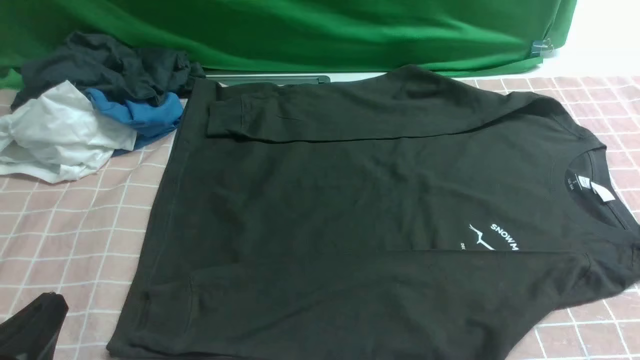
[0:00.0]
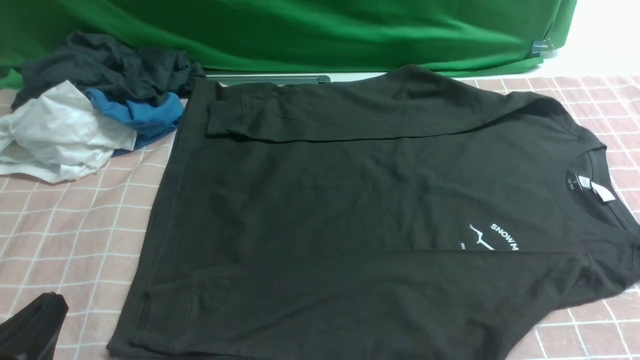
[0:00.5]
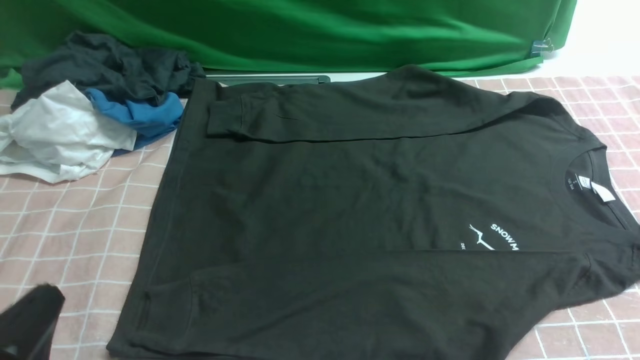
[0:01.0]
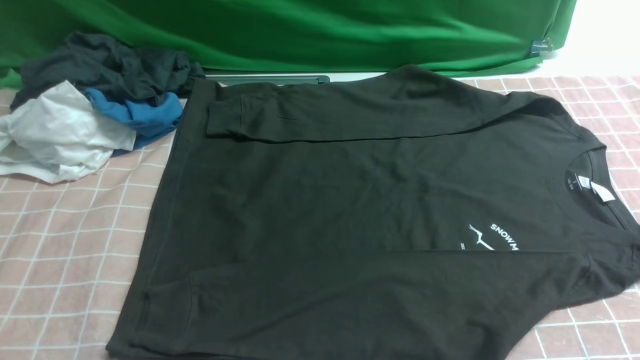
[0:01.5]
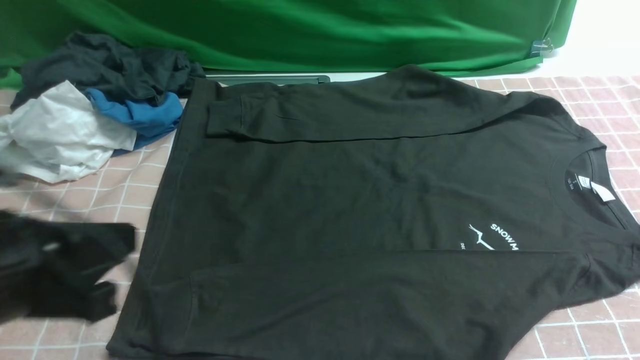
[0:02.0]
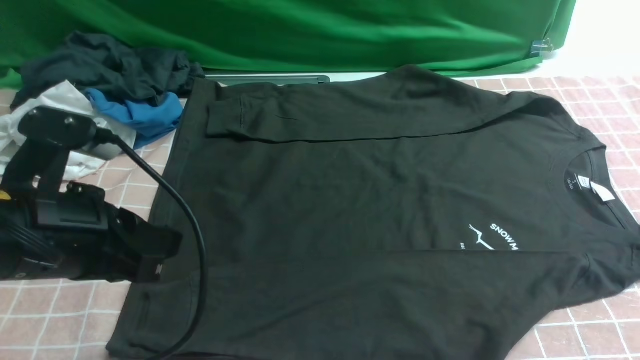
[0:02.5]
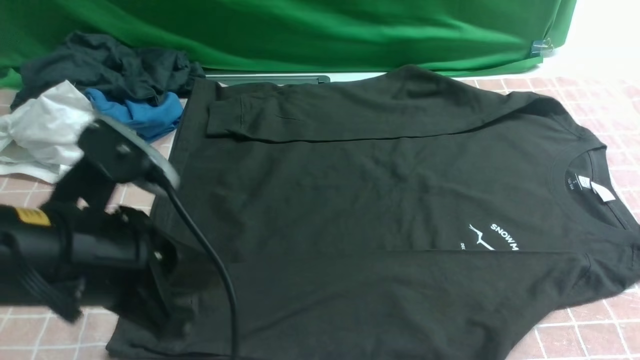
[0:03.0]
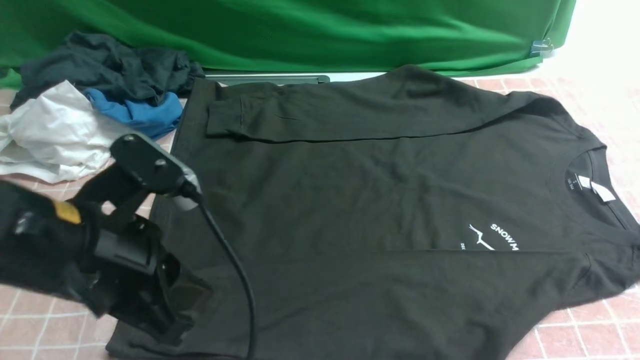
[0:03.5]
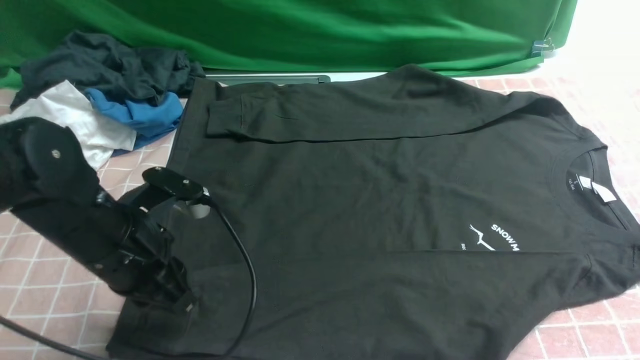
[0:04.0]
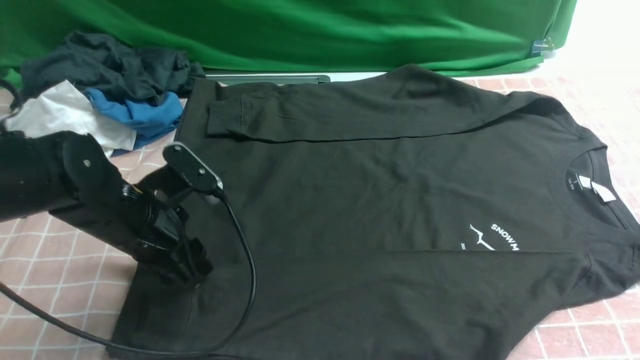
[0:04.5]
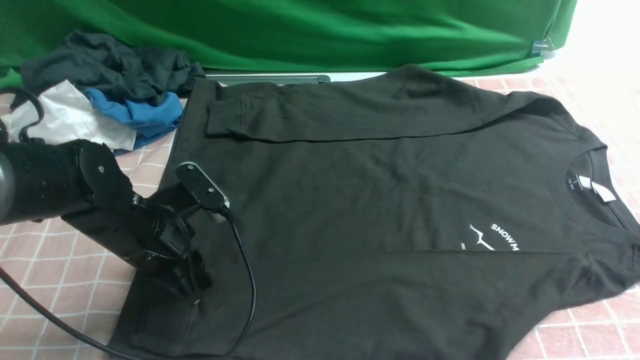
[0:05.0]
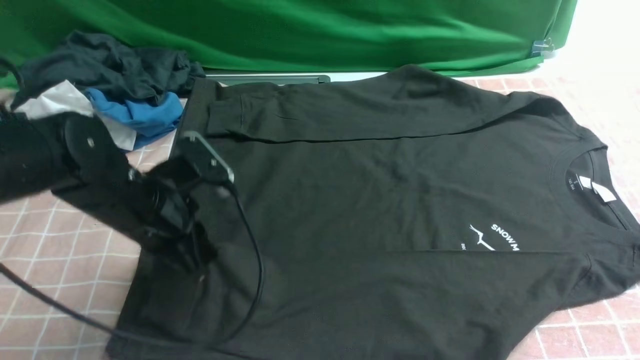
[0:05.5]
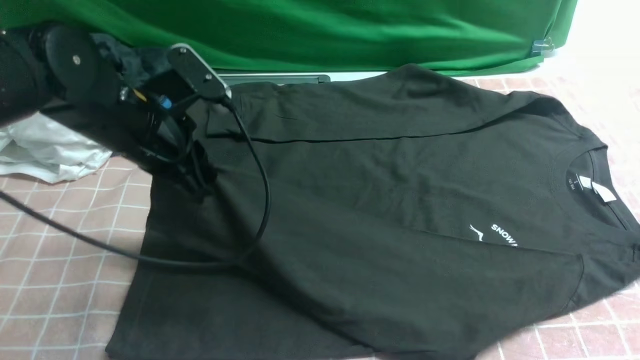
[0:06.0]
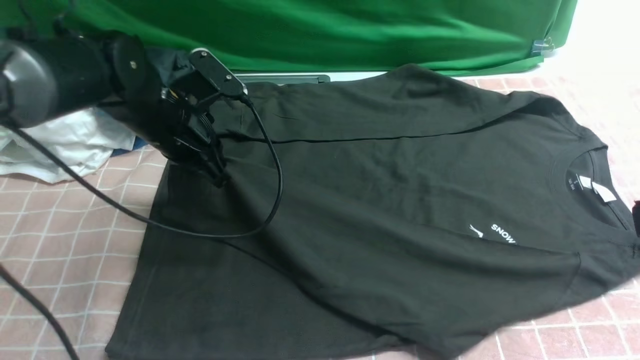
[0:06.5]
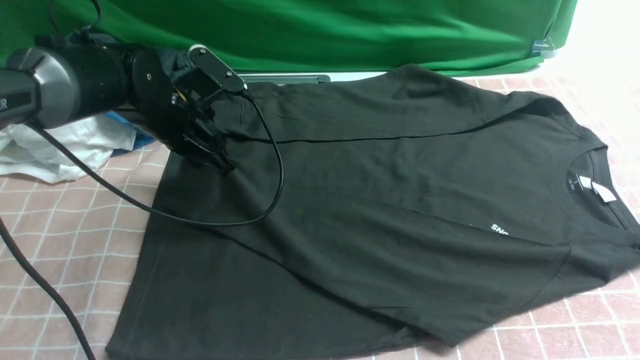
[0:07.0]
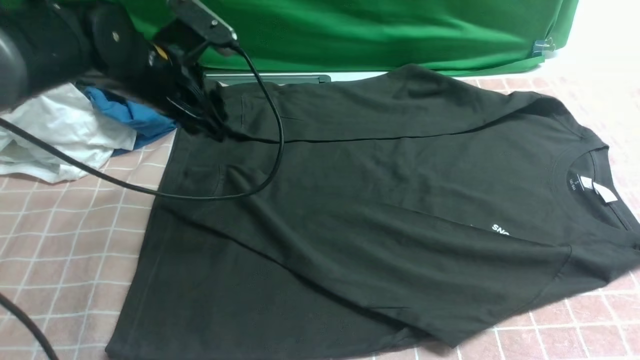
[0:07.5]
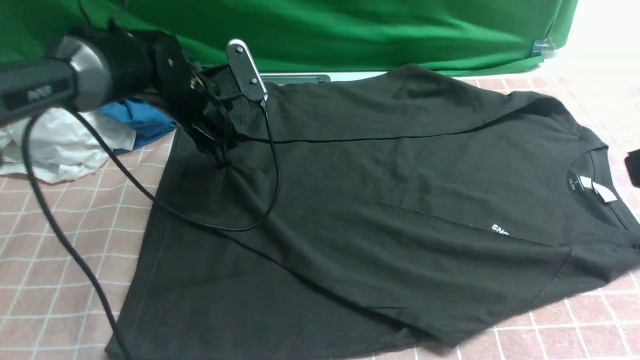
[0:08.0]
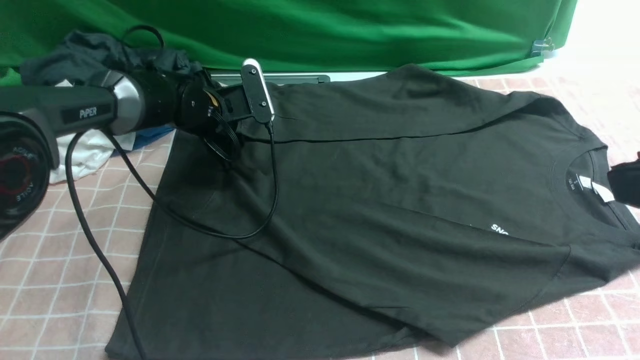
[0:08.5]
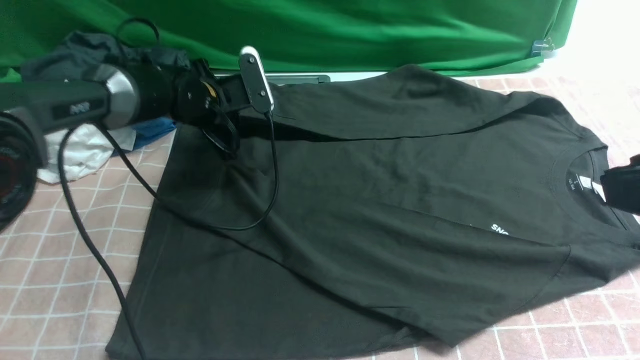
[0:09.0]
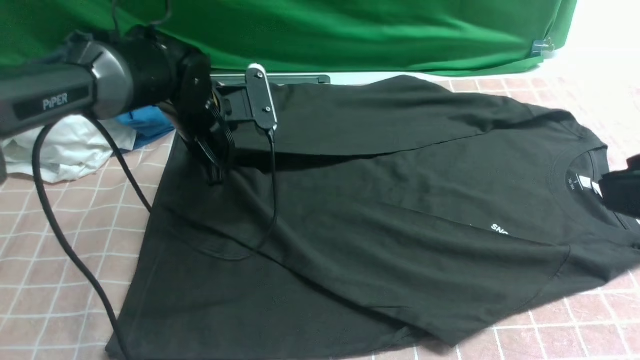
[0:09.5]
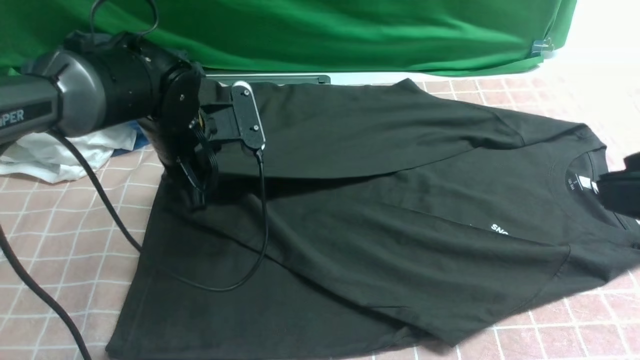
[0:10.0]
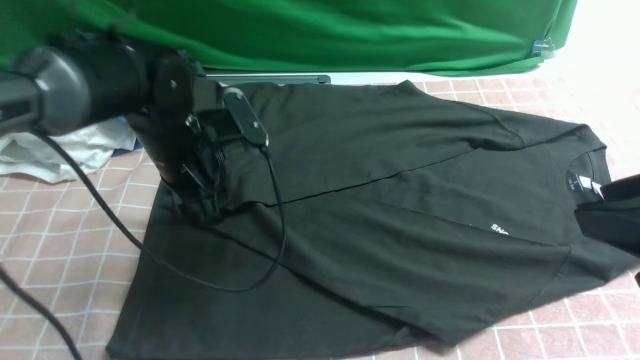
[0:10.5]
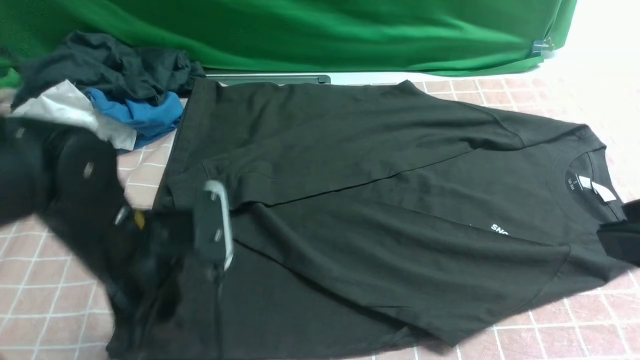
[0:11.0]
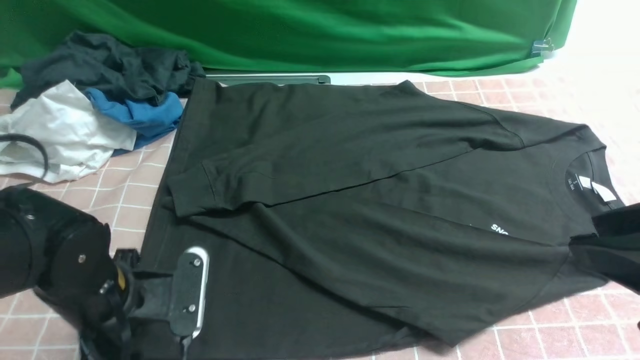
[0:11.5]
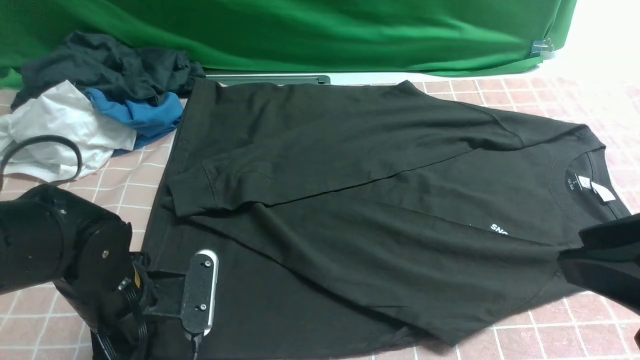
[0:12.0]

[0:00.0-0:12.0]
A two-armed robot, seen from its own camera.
Step, 0:00.0 to 0:05.0: use the left arm to clamp the cuff closest to it.
Step, 0:05.5 to 0:07.0: use the left arm to drag and place the cuff at the centered position on the left edge of the fabric.
Step, 0:07.5 to 0:08.5: use the left arm to clamp the cuff farthest from it.
Step, 0:09.0 to 0:10.5: use the left arm to drag and drop the cuff onto the cuff closest to the left arm.
0:00.0 to 0:02.0: The left gripper heads upward and forward, covering approximately 15 cm.
0:02.0 to 0:04.0: The left gripper travels forward and downward by roughly 15 cm. The right gripper shifts approximately 20 cm upward.
0:04.0 to 0:06.0: The left gripper goes about 10 cm forward, and opens, then closes once more.
0:06.0 to 0:08.0: The left gripper goes about 15 cm forward and downward, and opens its fingers.
0:08.0 to 0:10.0: The left gripper goes some 5 cm backward, and closes up.
0:10.0 to 0:12.0: The left gripper travels backward by roughly 15 cm, and opens up.

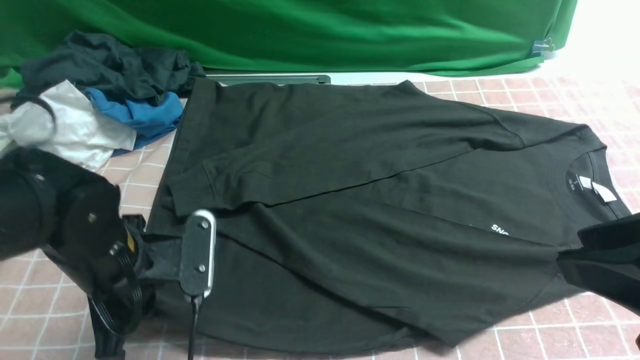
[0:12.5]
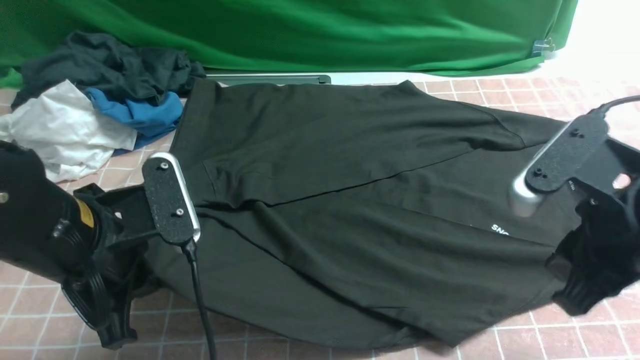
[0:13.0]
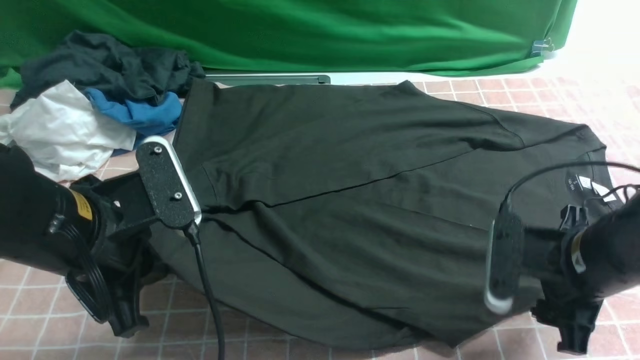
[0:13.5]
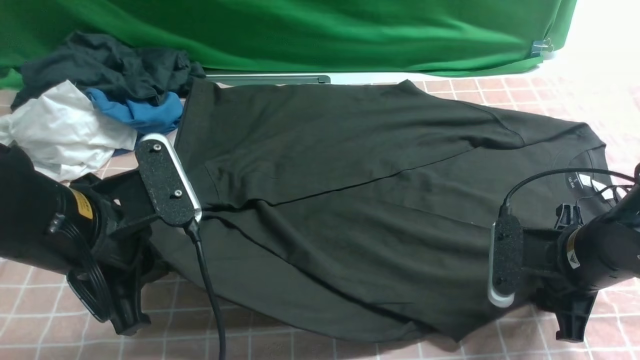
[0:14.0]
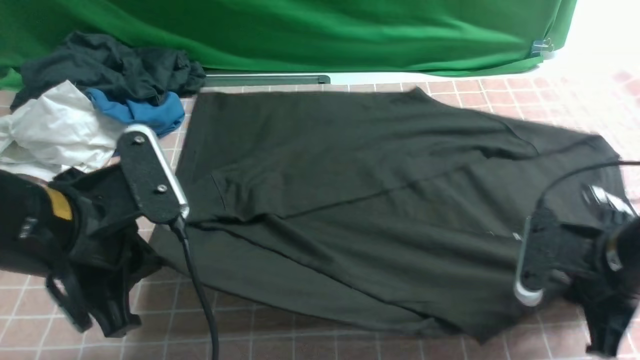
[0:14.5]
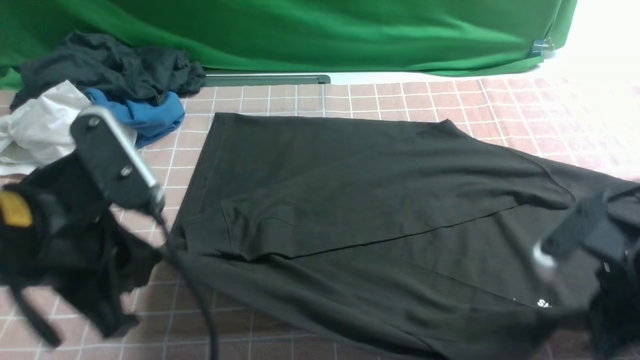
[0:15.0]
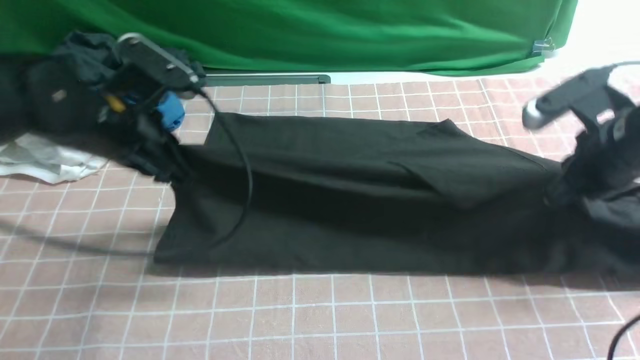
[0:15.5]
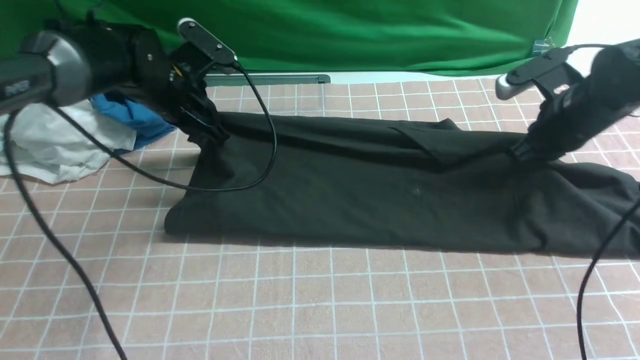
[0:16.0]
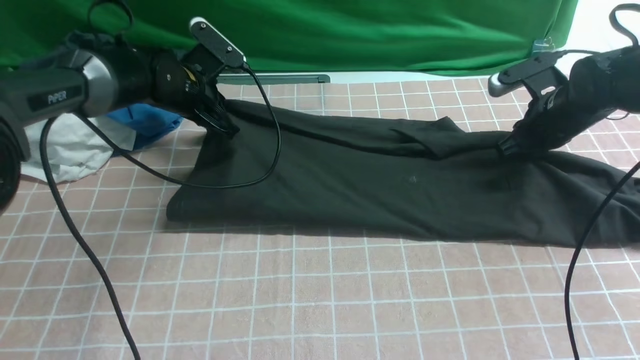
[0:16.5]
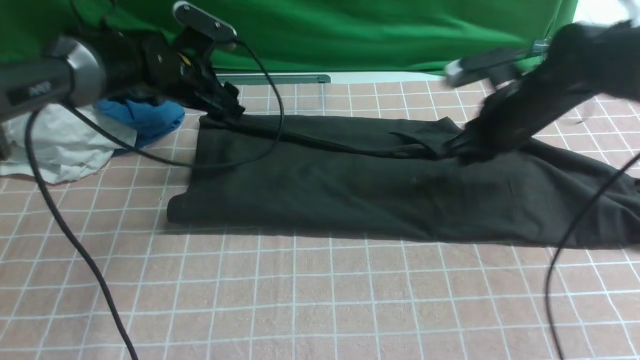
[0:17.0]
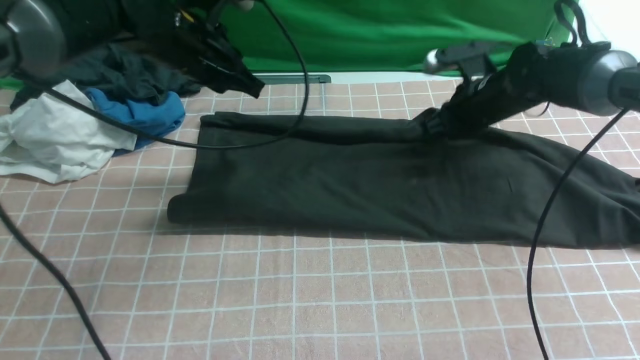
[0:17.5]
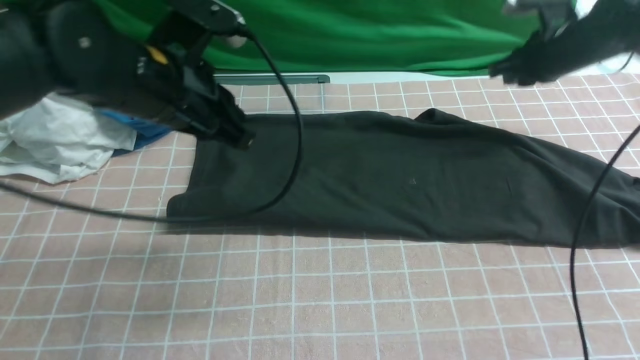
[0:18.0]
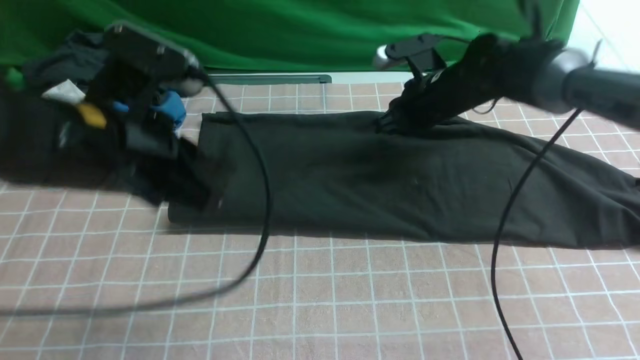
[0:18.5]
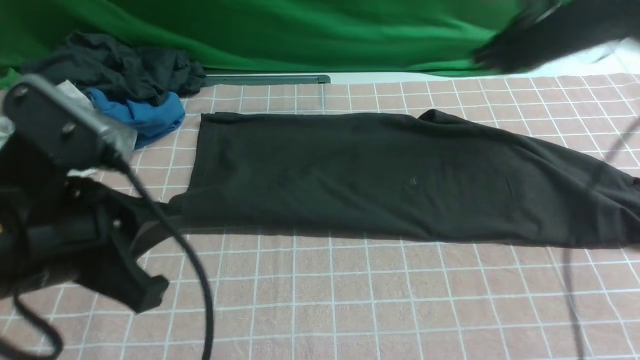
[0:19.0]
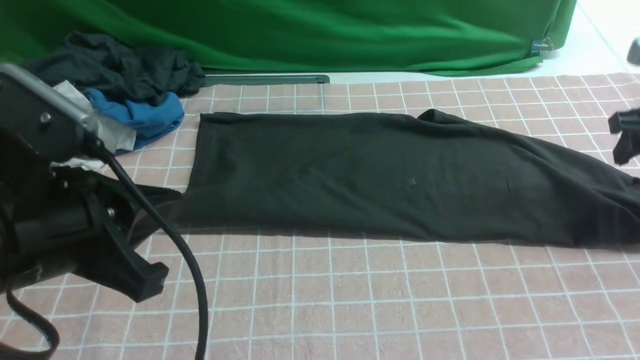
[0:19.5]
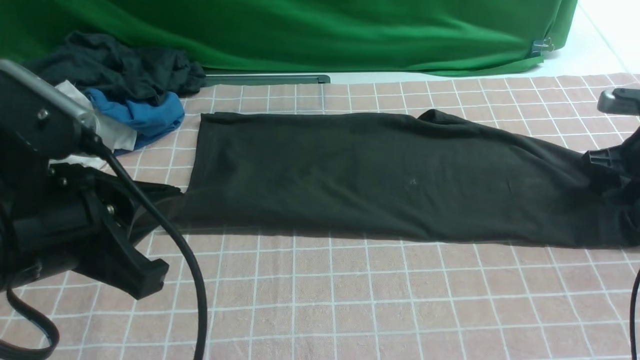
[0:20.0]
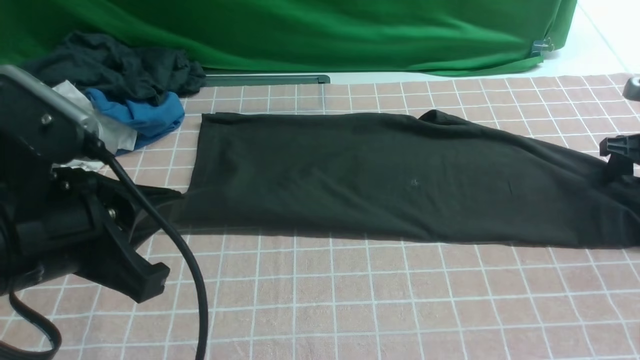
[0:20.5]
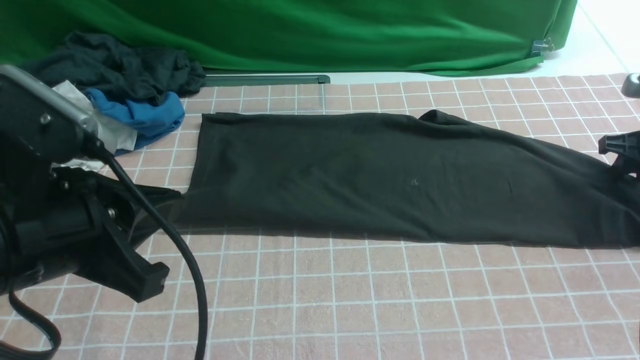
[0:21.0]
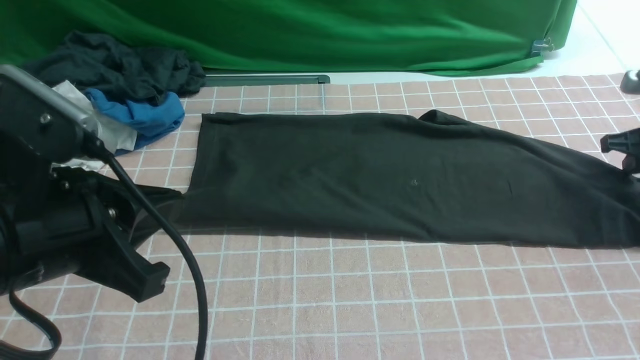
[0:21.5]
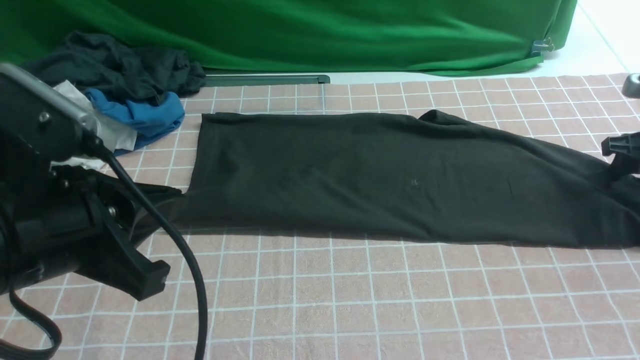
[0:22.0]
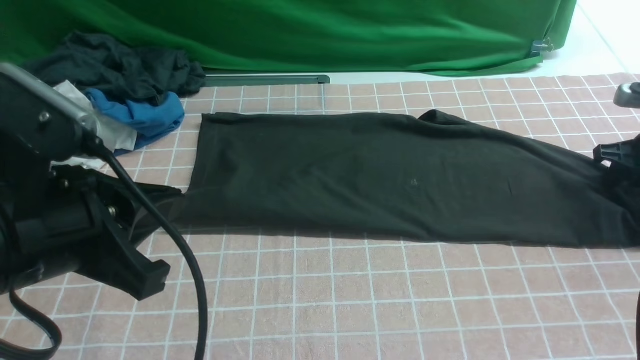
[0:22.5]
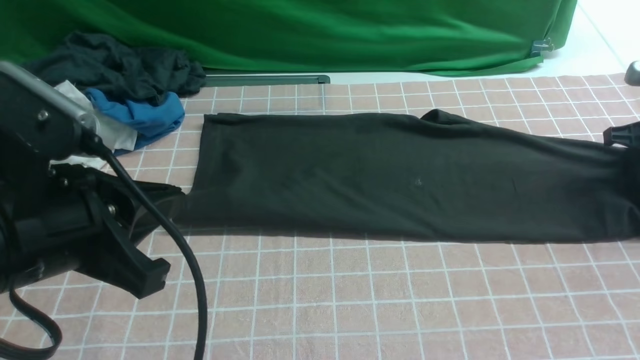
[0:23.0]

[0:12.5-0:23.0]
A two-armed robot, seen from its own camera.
Step, 0:14.5 to 0:17.0: use both arms to drag the lower edge of the fabric forward and fold it over the upper edge.
0:12.5 to 0:14.5: The left gripper travels upward by about 10 cm; the right gripper shifts about 20 cm downward and forward, and closes its fingers.
0:14.5 to 0:16.5: The grippers both shift forward by approximately 25 cm. The right gripper opens its fingers.
0:16.5 to 0:19.0: The right gripper swings left and right, about 10 cm each way, with 3 reversals; the left gripper moves backward and upward, roughly 35 cm, and opens and closes again.
0:19.0 to 0:21.0: The right gripper goes about 20 cm to the right, downward and backward, and opens, then closes once more.
0:21.0 to 0:23.0: Both grippers stay put.
